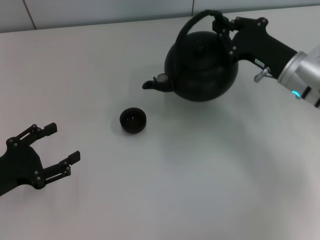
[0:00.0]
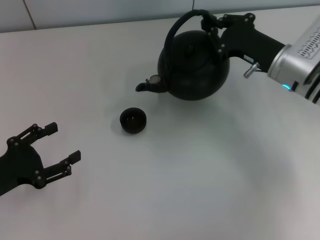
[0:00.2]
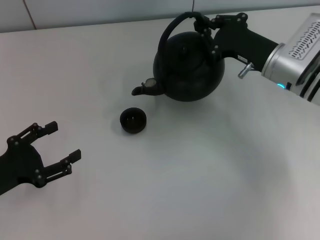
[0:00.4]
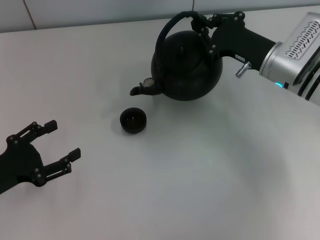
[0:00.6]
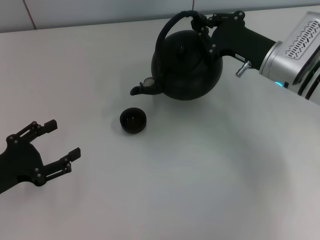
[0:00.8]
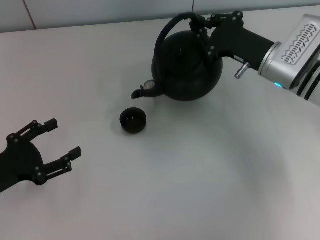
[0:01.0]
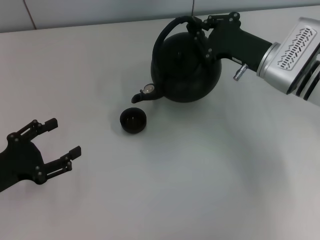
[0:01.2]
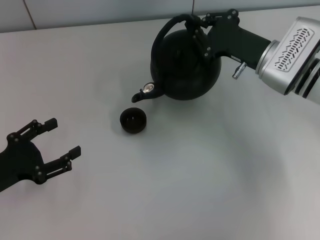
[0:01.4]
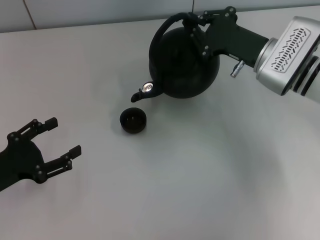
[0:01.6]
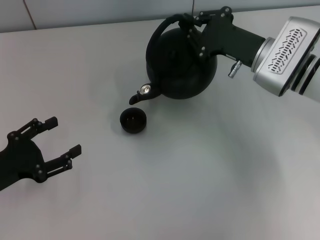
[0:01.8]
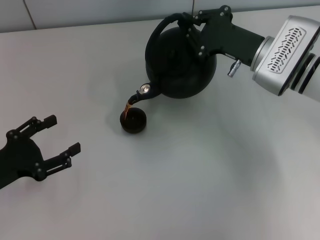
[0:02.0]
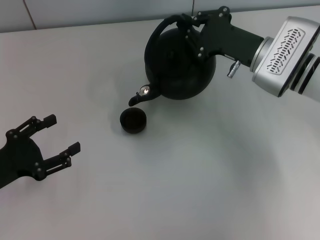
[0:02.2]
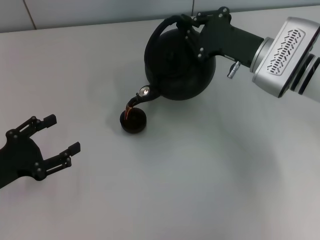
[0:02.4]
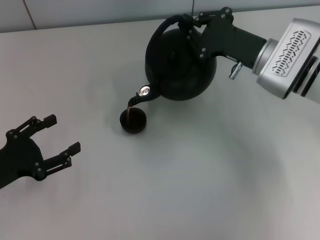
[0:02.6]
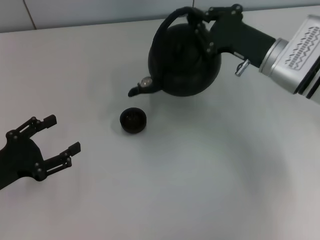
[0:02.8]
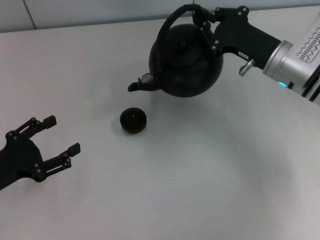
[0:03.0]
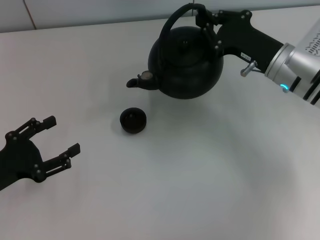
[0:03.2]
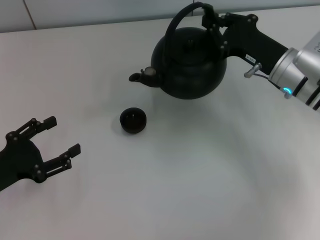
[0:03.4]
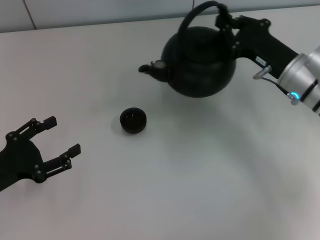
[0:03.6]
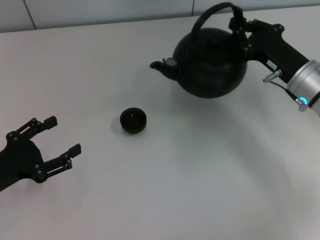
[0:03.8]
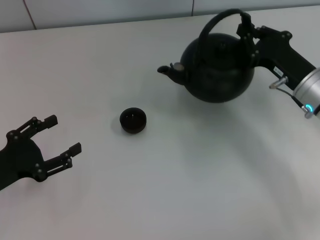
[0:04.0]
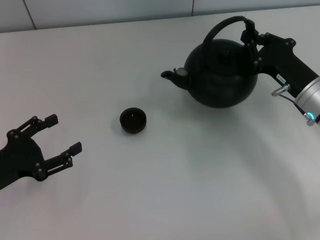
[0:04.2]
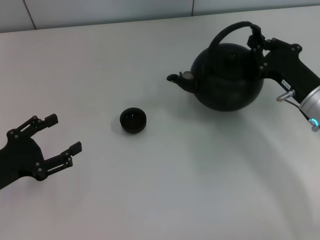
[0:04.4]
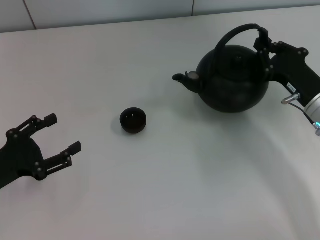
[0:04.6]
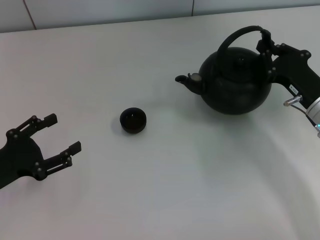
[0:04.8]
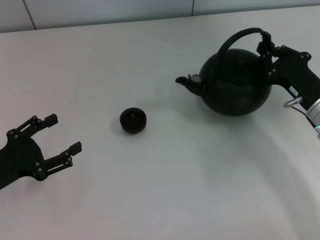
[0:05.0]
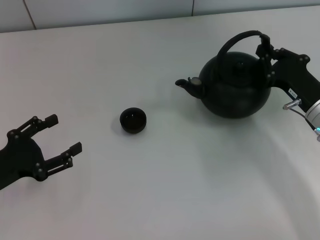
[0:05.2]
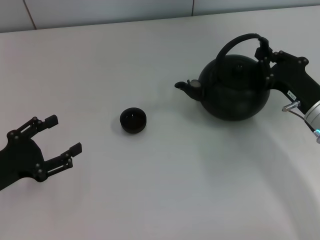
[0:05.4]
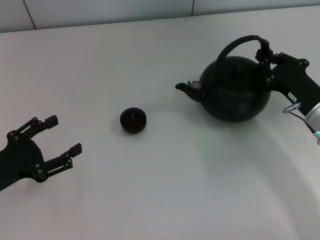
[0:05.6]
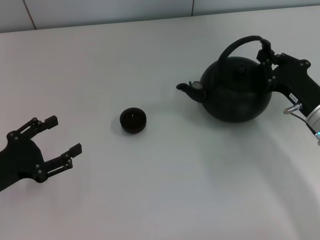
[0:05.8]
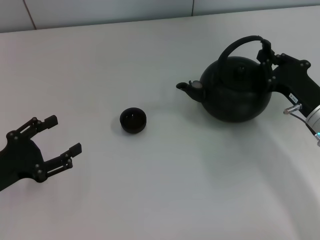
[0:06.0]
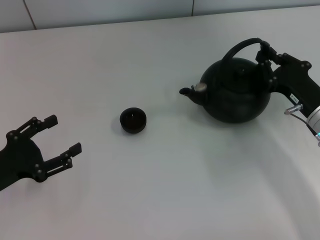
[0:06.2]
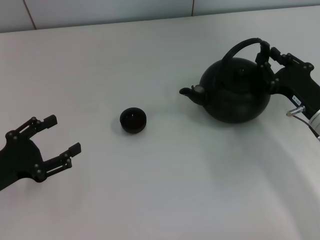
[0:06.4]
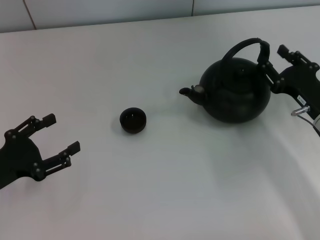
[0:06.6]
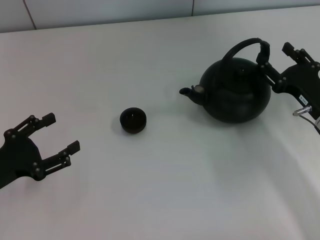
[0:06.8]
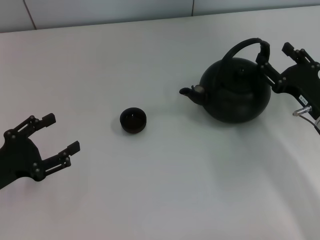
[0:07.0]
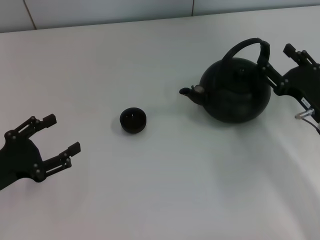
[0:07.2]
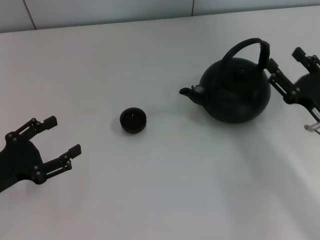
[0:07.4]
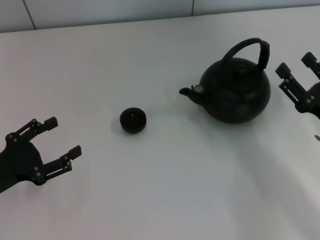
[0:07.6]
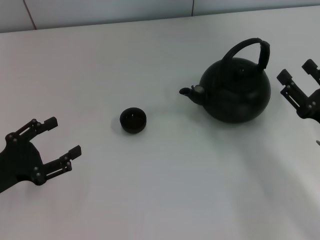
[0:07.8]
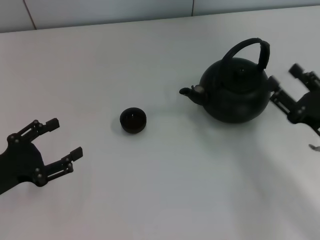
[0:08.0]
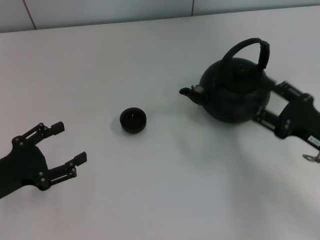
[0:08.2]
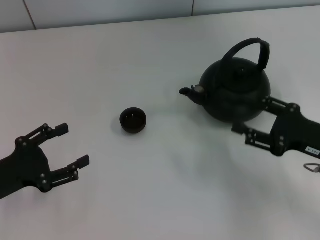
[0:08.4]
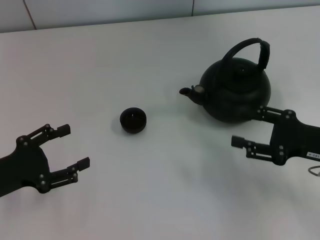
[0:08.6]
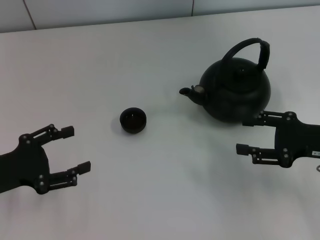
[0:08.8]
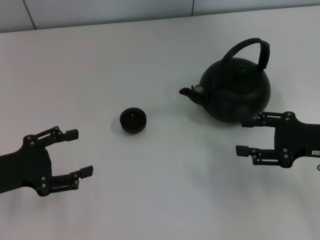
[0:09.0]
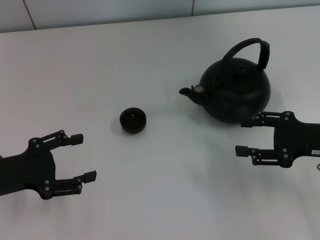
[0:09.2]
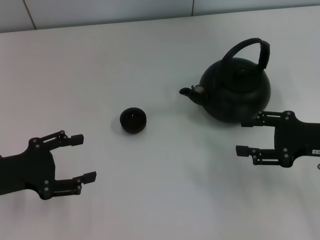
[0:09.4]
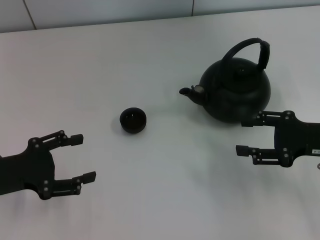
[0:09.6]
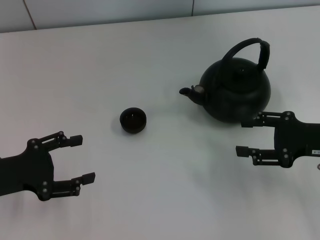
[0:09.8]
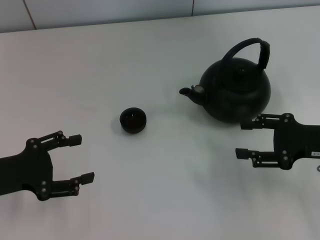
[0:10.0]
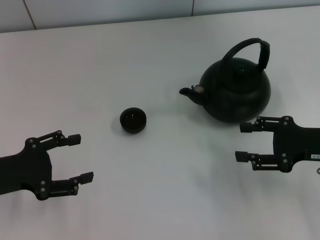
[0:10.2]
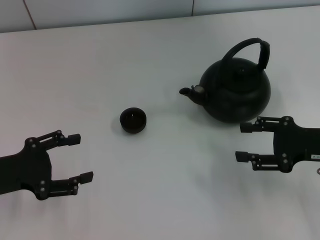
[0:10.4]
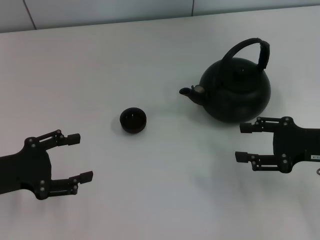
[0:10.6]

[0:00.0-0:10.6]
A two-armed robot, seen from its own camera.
Task of the whole recording: Grasp the handle of the teapot with one hand and pour tea into the teacup.
Step, 0:03.0 to 0:07.2: Put down the teapot with the right gripper.
0:00.0 to 0:01.6: The grippers stay close to where they were, moving slightly.
0:01.6 to 0:03.0: The grippers stay close to where they were, moving slightly.
0:03.0 to 0:04.6: The right gripper goes roughly 10 cm backward and to the right.
0:04.6 to 0:06.0: The grippers stay close to where they were, moving slightly.
0:06.0 to 0:07.6: The right gripper is displaced backward by roughly 5 cm, and opens up.
0:07.6 to 0:09.0: The right gripper shifts by some 5 cm.
0:09.0 to 0:10.6: Neither gripper changes place.

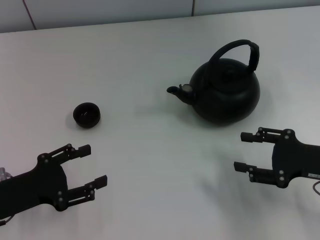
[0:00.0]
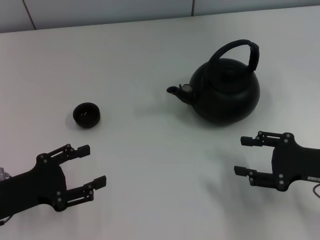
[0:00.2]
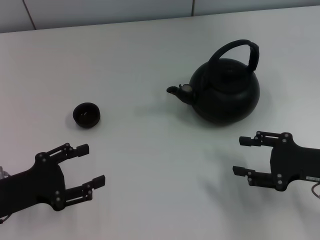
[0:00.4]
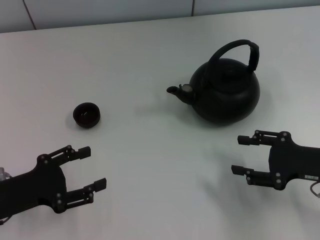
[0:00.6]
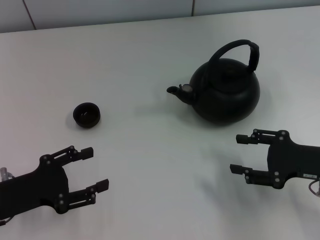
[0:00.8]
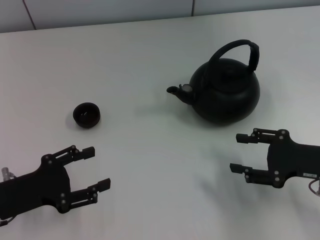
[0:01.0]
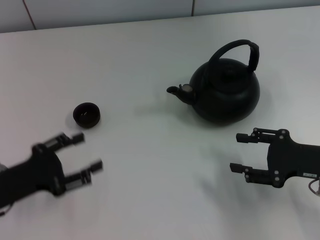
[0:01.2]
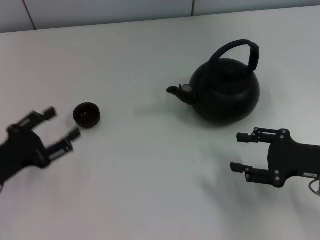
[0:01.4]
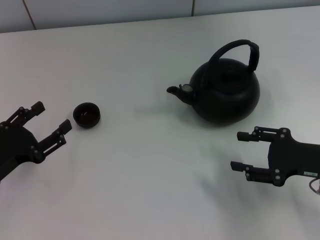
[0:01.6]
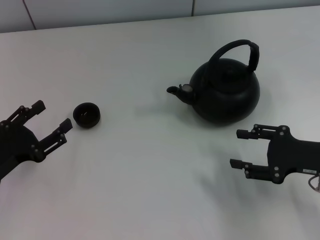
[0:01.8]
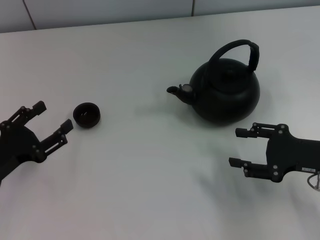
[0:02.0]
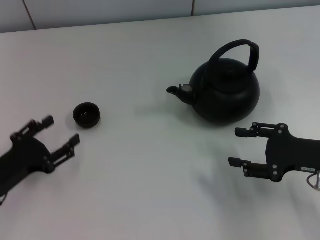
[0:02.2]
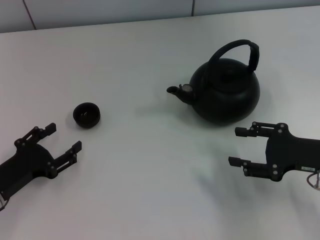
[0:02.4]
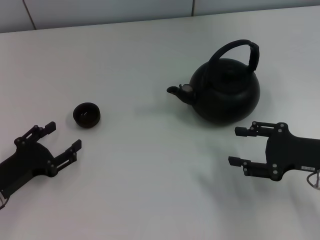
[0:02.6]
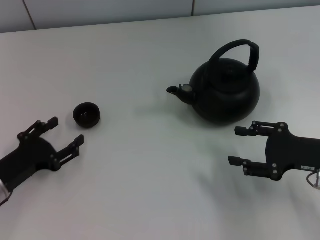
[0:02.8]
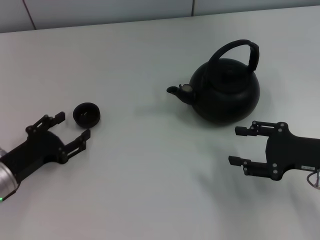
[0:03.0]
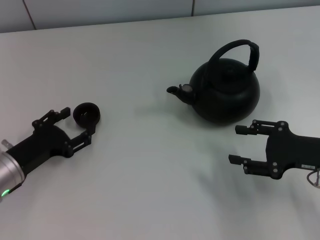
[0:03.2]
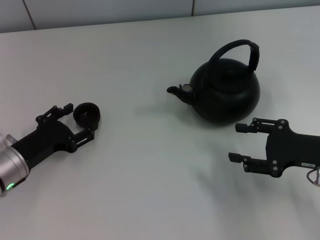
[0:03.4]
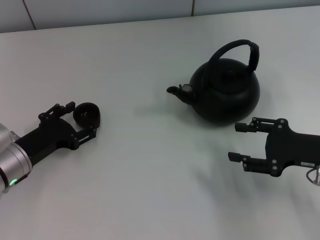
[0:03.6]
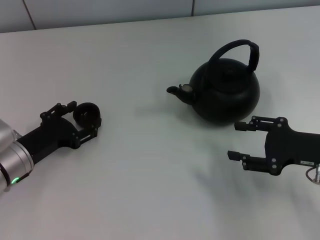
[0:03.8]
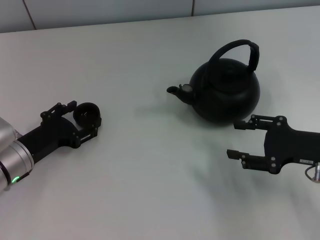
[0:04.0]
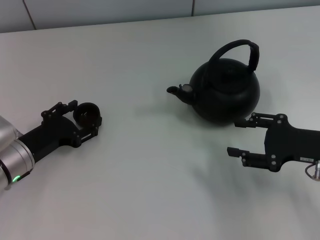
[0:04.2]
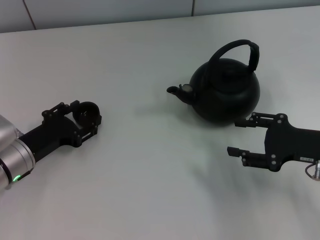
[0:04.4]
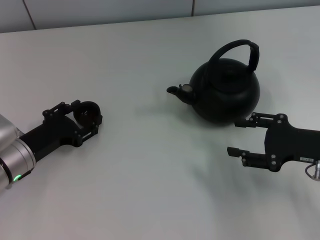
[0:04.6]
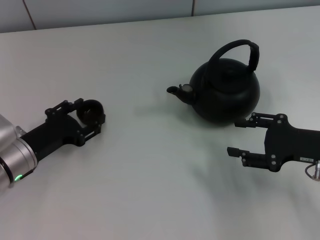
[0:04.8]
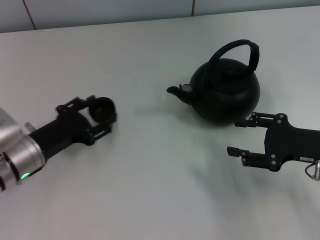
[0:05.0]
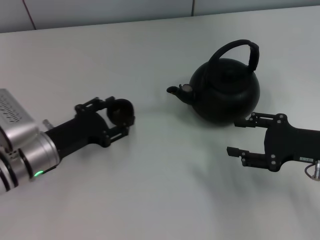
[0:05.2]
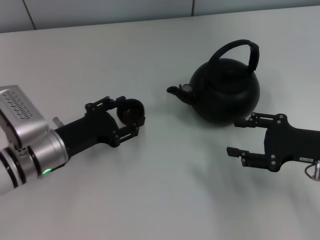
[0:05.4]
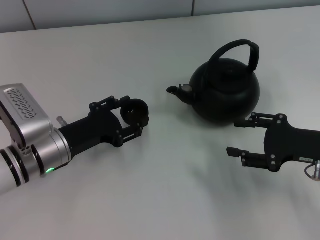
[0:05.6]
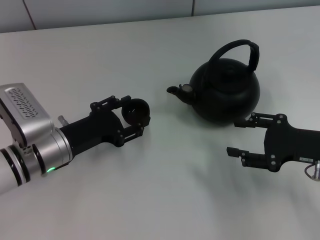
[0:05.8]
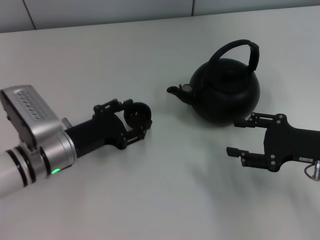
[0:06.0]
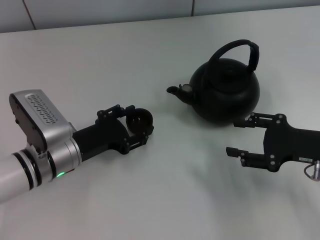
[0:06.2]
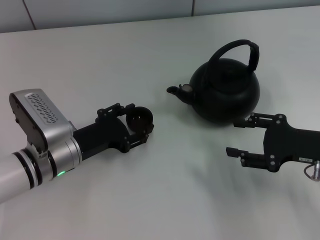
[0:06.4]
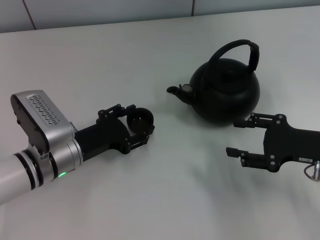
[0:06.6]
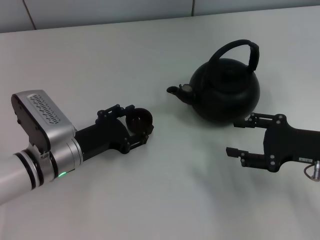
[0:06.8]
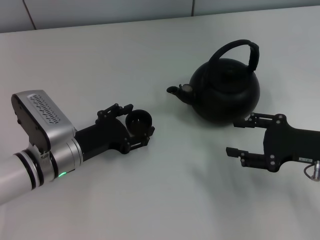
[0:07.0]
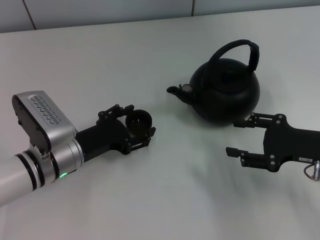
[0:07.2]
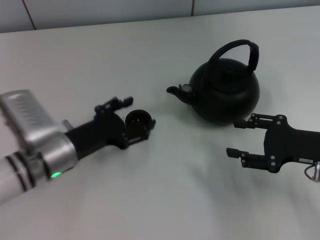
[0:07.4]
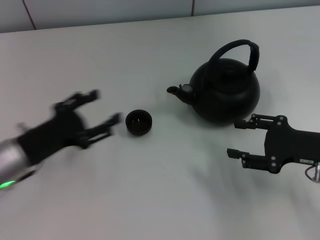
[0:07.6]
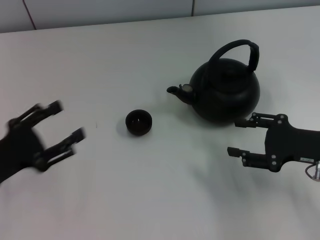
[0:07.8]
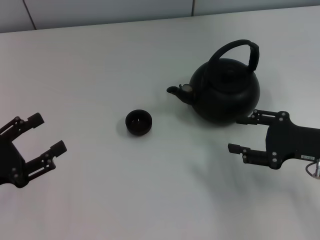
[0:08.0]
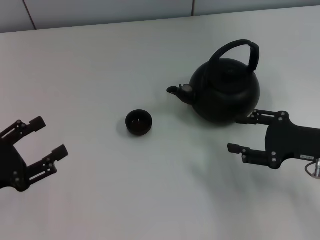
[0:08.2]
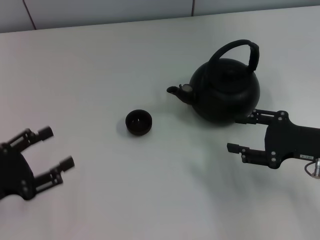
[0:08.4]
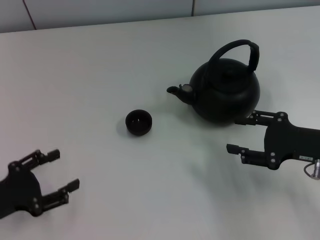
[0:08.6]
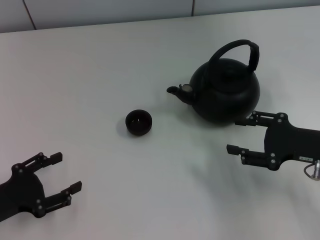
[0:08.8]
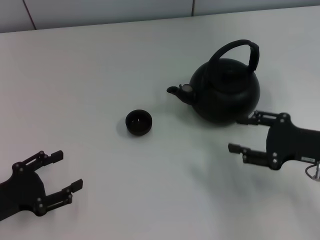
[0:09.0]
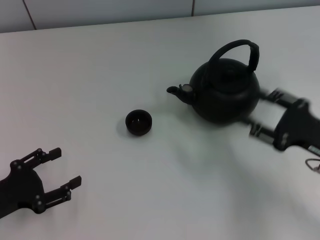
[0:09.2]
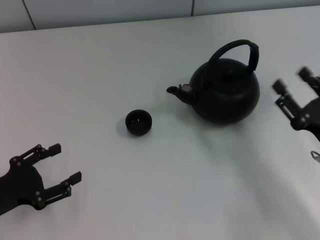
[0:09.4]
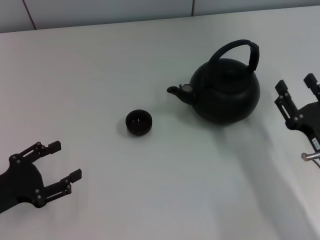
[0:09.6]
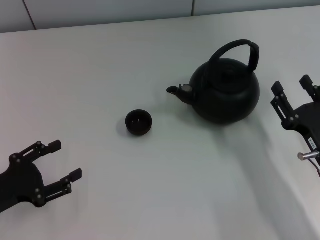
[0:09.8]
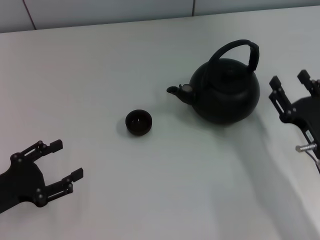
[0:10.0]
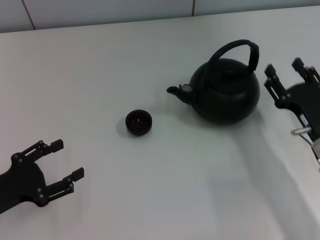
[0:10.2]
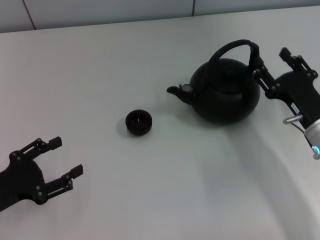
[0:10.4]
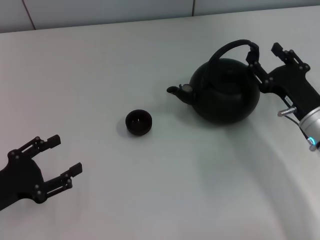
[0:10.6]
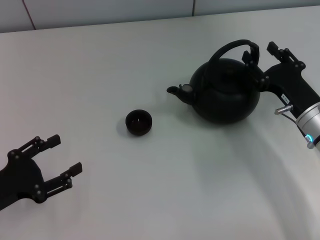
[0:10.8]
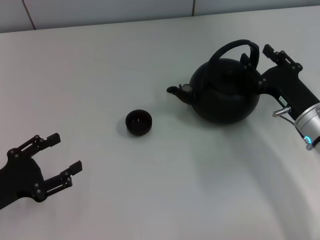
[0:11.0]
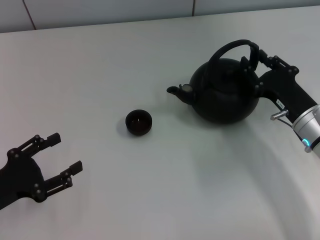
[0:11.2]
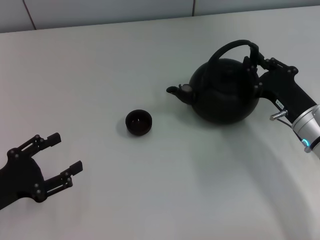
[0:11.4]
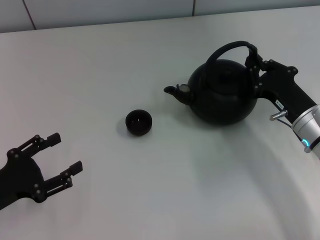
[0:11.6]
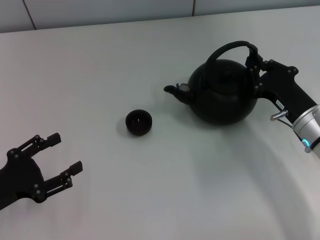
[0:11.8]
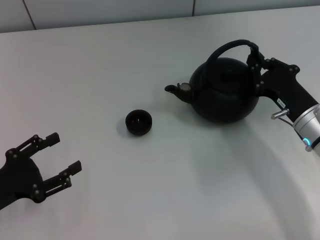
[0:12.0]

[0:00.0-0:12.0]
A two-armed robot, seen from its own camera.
Task of the whole recording: Grasp the handle of the teapot with one hand and pour tea into the teacup.
Step, 0:00.0 to 0:04.8: Pick up the teacup with the left gripper.
Step, 0:05.0 to 0:07.4: Place the teacup in the center of view with the left gripper.
0:01.6 to 0:03.0: The grippers move only a little.
0:03.0 to 0:04.4: The grippers make only small movements.
0:04.4 to 0:06.0: The left gripper is displaced to the right by roughly 5 cm.
0:06.0 to 0:07.6: The left gripper travels to the left by some 5 cm, and opens.
0:07.6 to 0:09.0: The left gripper is displaced to the left and backward by about 10 cm.
0:09.0 to 0:10.4: The right gripper shifts by about 5 cm.
0:10.4 to 0:12.0: The right gripper closes its fingers.
